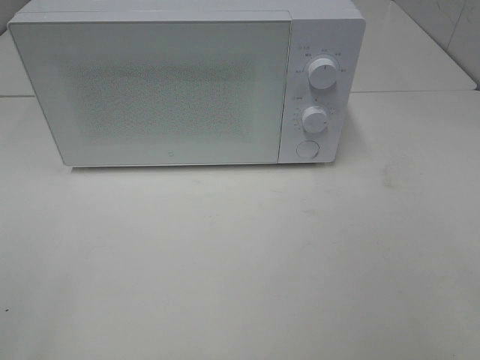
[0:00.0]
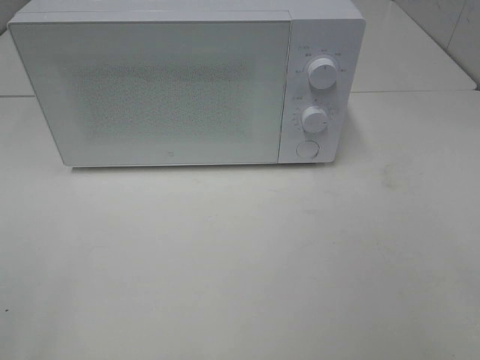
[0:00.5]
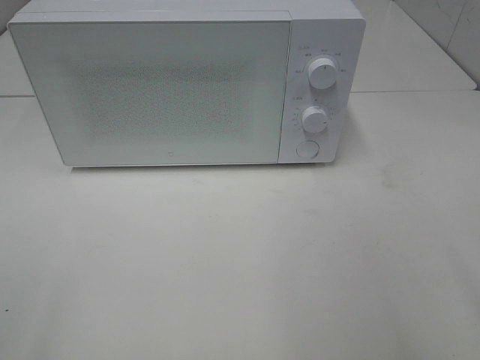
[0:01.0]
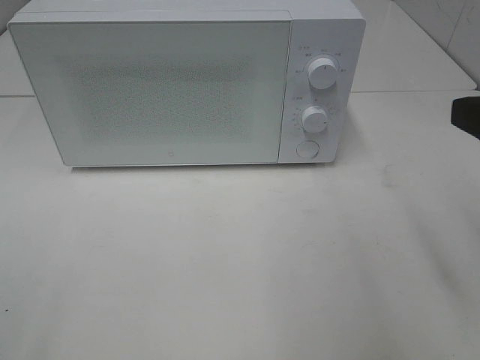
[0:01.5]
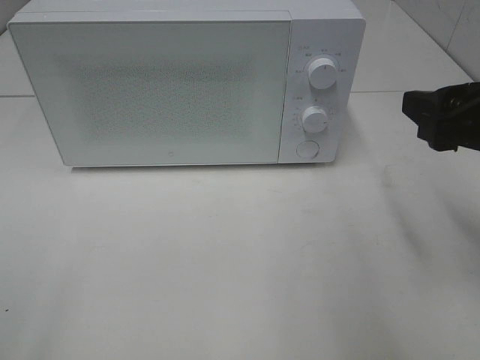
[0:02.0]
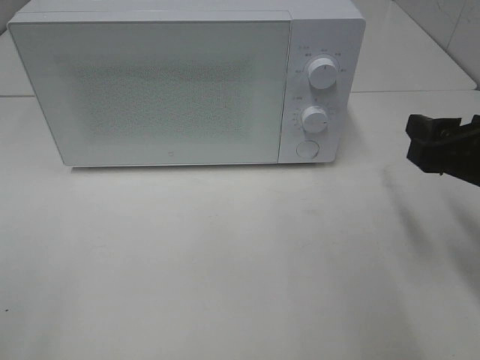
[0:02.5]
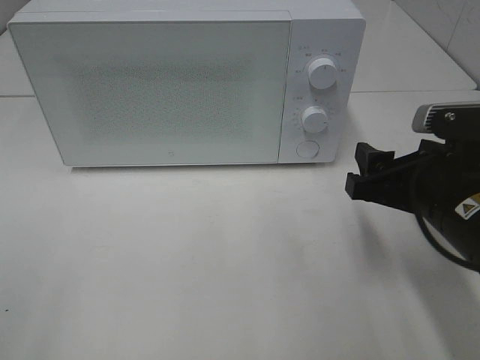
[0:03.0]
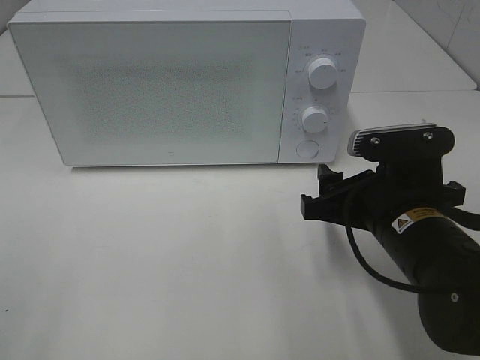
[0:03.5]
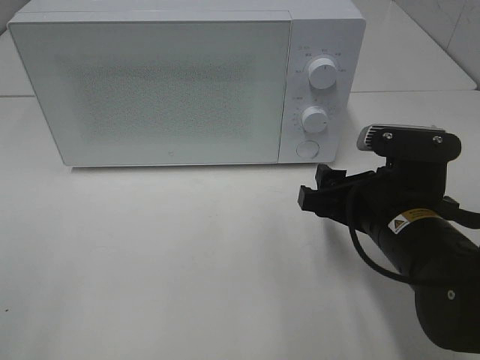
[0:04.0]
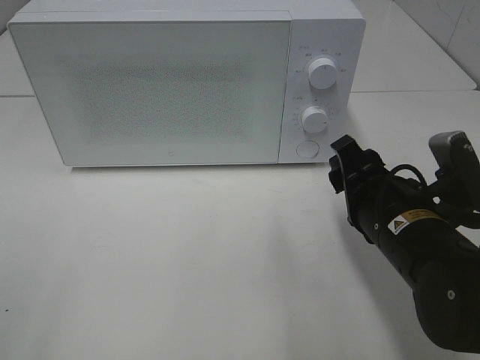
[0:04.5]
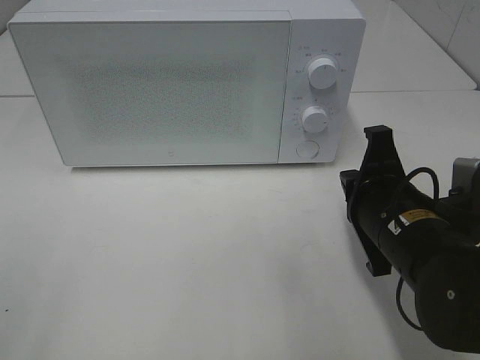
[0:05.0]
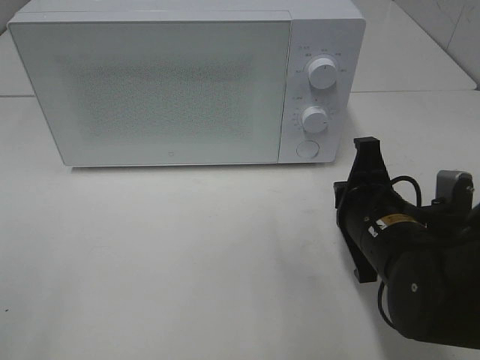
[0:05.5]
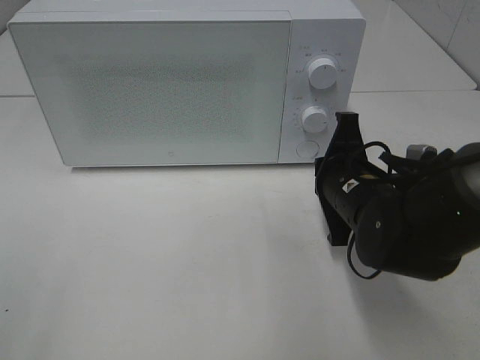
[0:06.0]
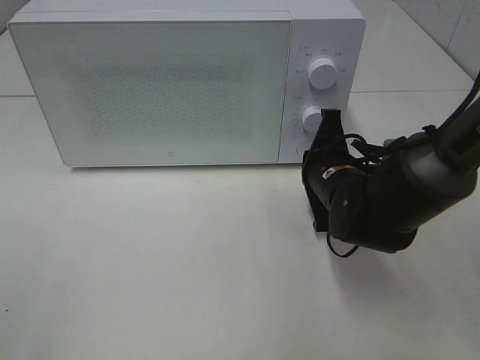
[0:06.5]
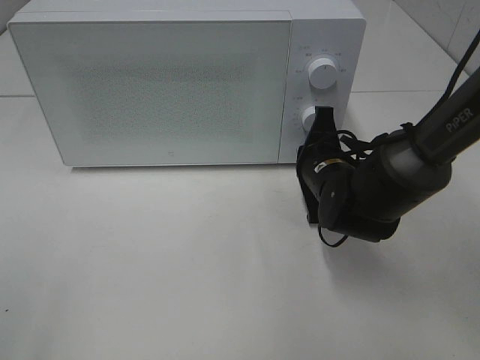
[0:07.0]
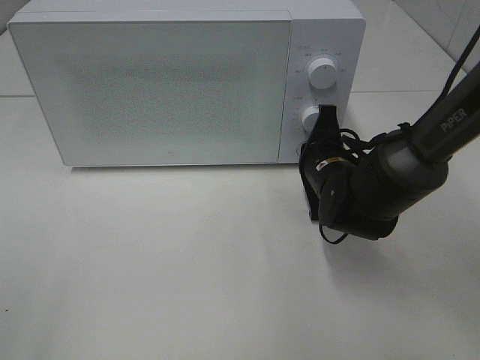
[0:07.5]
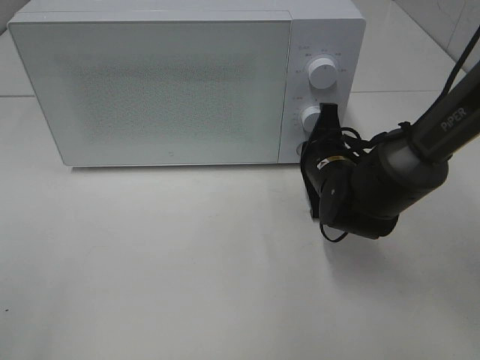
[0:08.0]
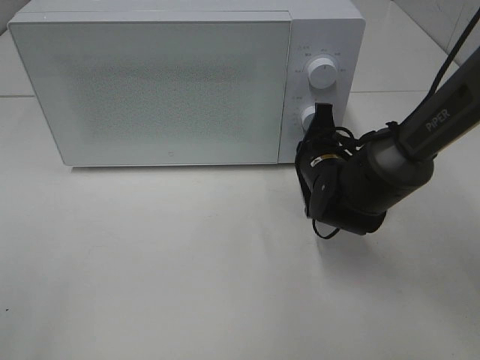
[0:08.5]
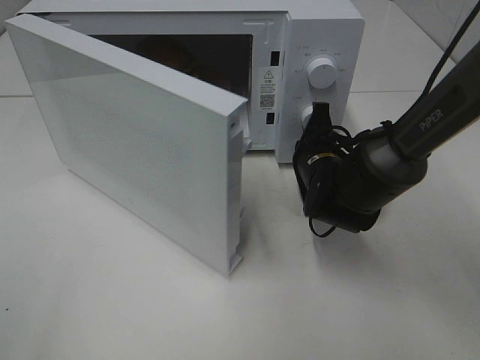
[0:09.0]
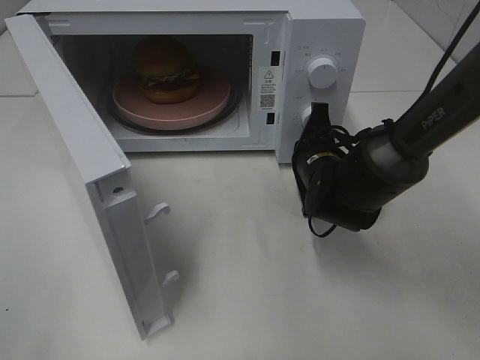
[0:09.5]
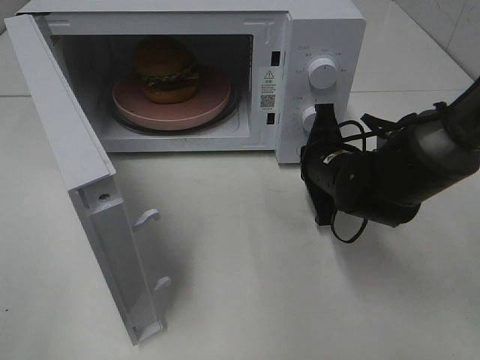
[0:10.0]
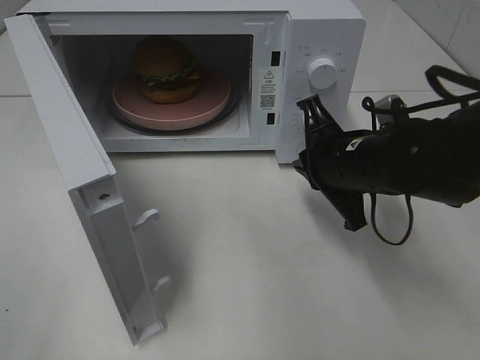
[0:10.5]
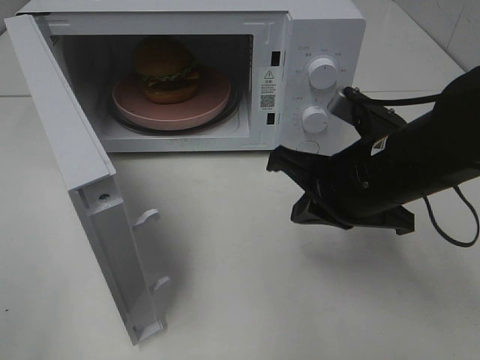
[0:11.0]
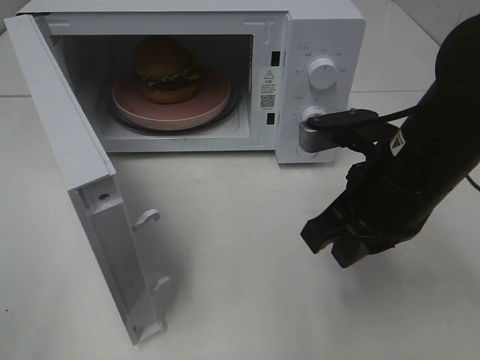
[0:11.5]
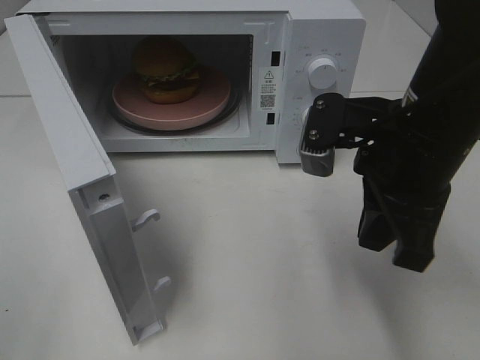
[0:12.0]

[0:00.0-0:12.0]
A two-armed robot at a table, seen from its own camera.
Task of the whole recording: Heat the burger.
Step, 0:00.0 to 0:10.0: Right hand: press the switch.
0:00.0 to 0:02.0: The right gripper is displaced forward by roughly 20 cm.
0:02.0 to 0:04.0: The right gripper is displaced downward and to the left by about 15 cm.
0:04.0 to 0:06.0: The right gripper is displaced forward by roughly 5 cm, and closes.
0:06.0 to 0:08.0: The right gripper moves forward, about 5 cm.
0:10.0 to 0:12.0: The right gripper travels upward and backward by approximately 15 cm.

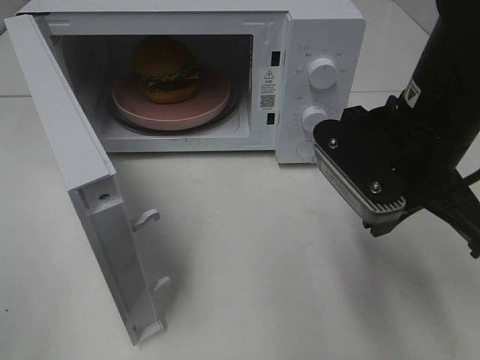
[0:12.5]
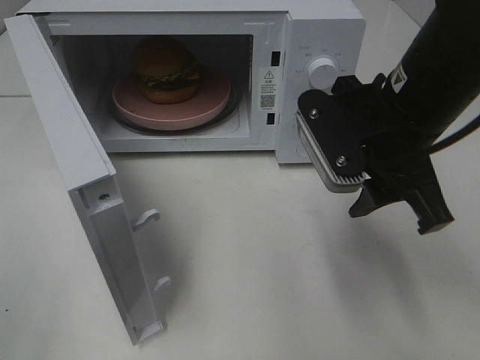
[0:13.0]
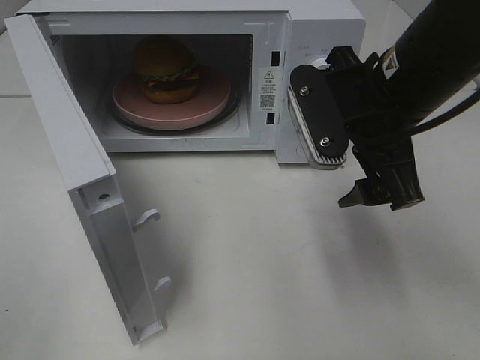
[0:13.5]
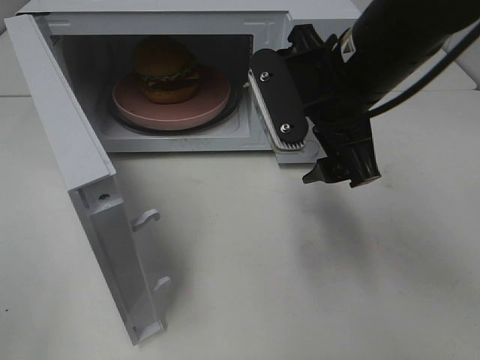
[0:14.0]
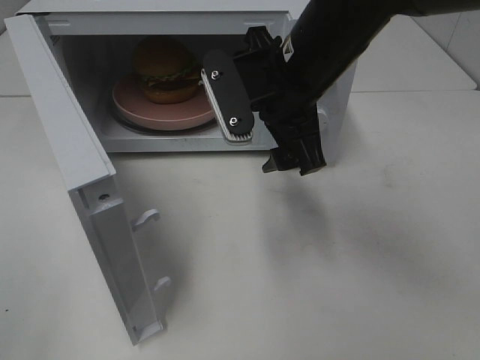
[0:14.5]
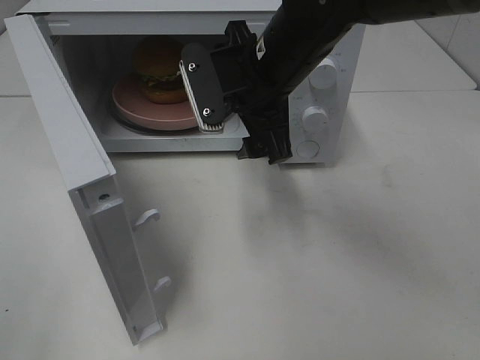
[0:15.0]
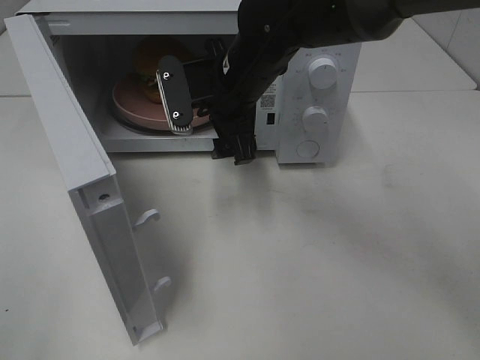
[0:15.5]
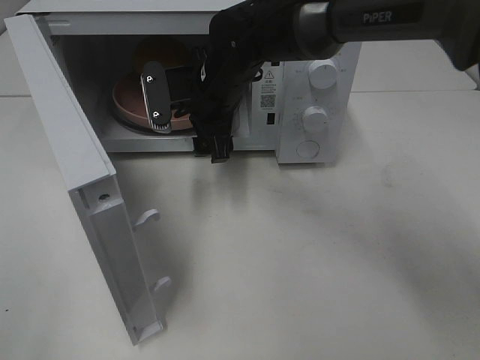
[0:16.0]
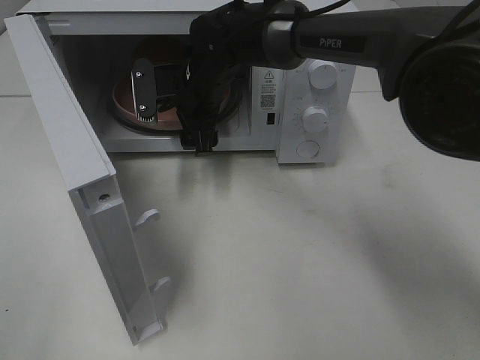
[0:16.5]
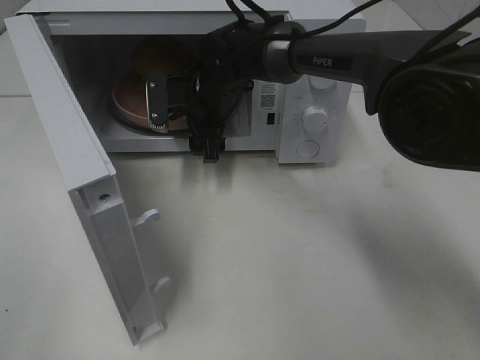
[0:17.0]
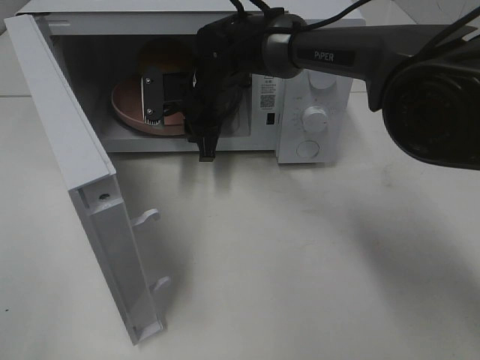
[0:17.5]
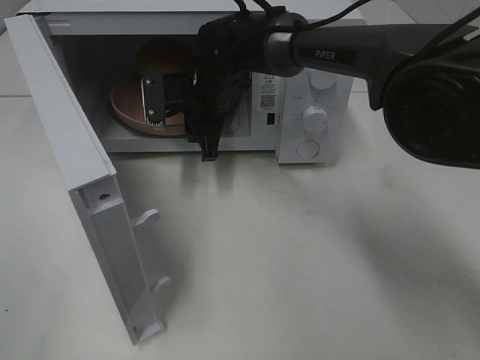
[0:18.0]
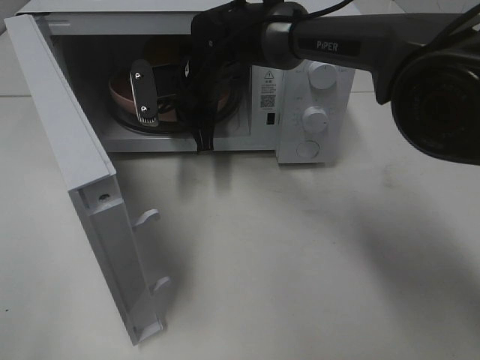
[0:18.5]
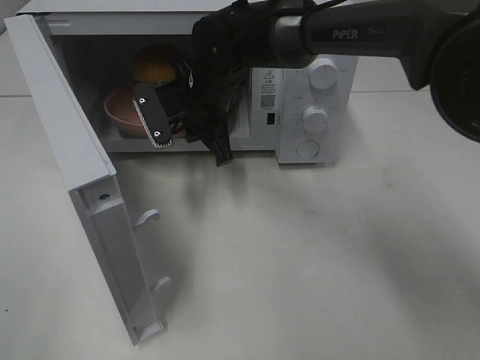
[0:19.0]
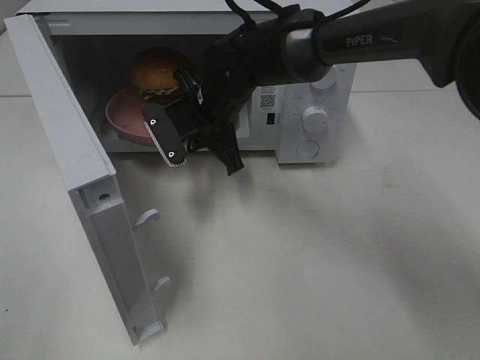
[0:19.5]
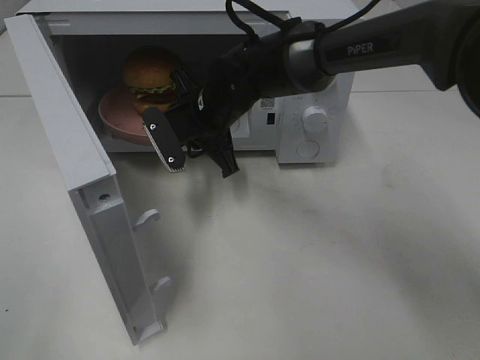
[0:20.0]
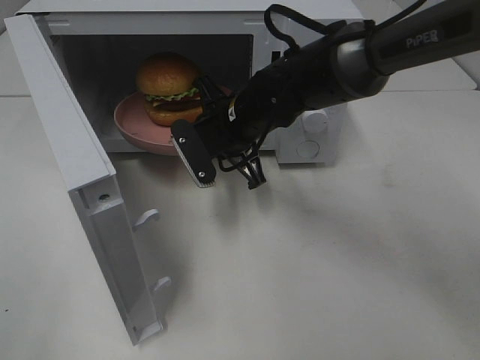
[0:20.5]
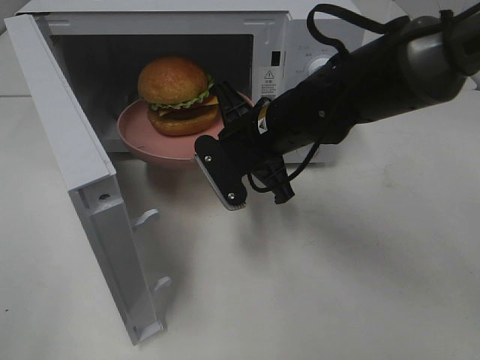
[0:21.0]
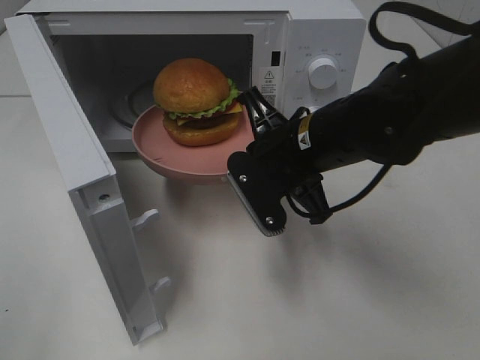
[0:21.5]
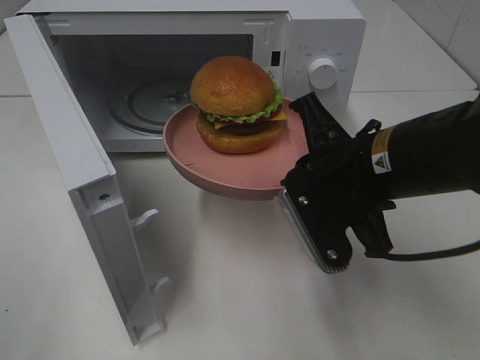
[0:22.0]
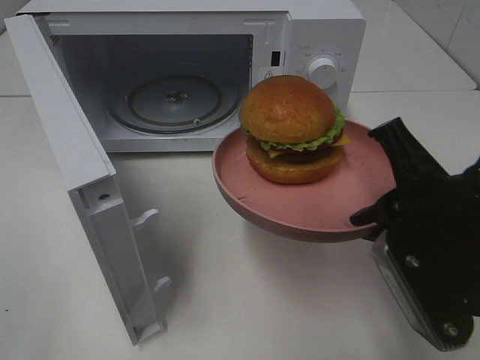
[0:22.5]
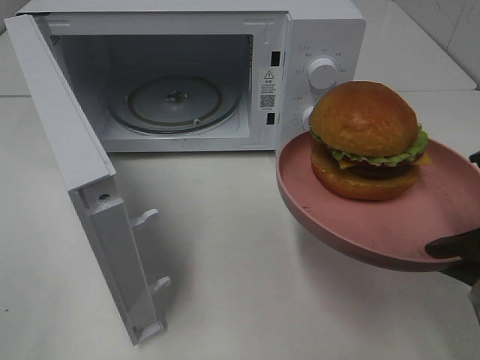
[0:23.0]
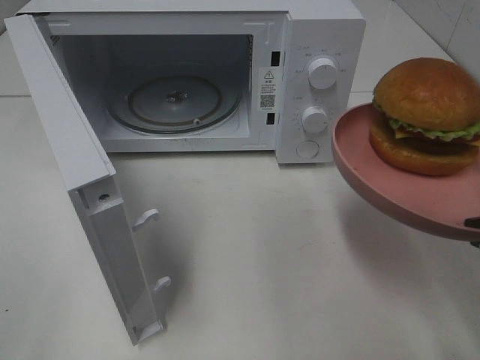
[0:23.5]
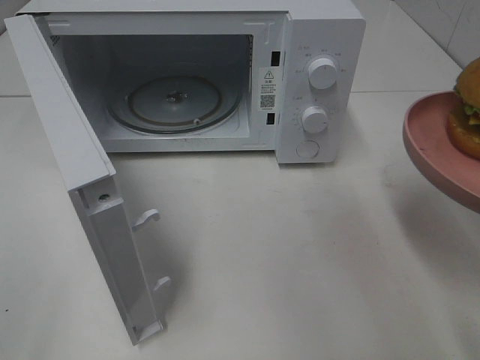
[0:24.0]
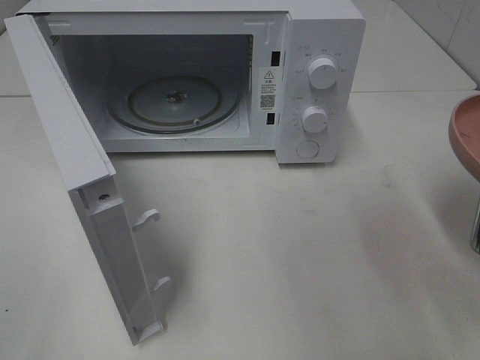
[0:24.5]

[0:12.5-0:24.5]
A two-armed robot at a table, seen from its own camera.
Task of the whole recording: Heat the burger.
Step, 0:12.5 to 0:18.5: Right hand: grab the plate with the hamburger.
0:12.5 to 0:14.5: The right gripper travels to the left and forward by some 10 cm, and opens up.
0:14.5 to 0:16.5: The right gripper is displaced forward, to the left and downward by some 20 cm.
0:16.5 to 0:18.5: The right gripper closes.
0:18.5 to 0:20.5: The right gripper travels backward and to the right by some 10 cm.
0:20.5 to 0:22.5: The right gripper heads backward and to the right, covering approximately 25 cm.
0:22.5 to 0:24.5: The right gripper goes roughly 10 cm to the right.

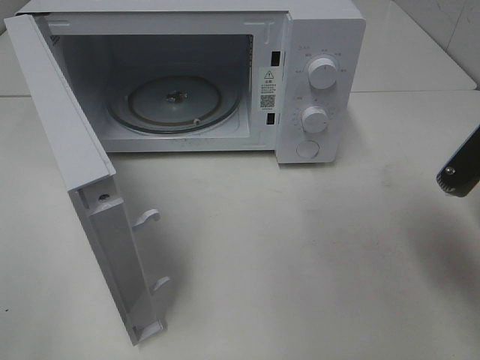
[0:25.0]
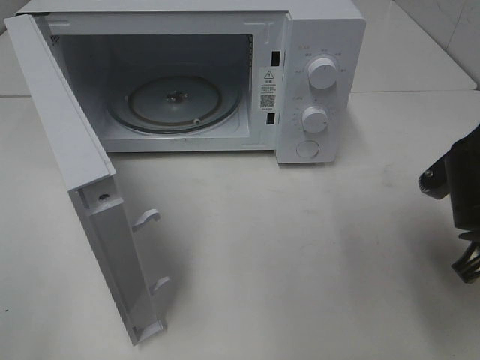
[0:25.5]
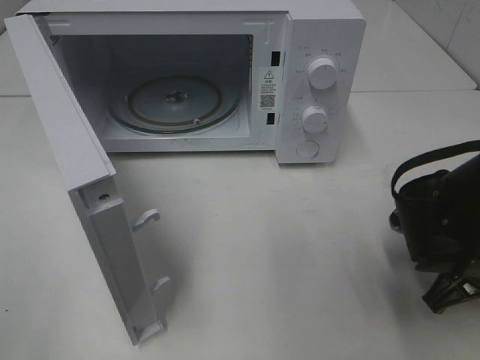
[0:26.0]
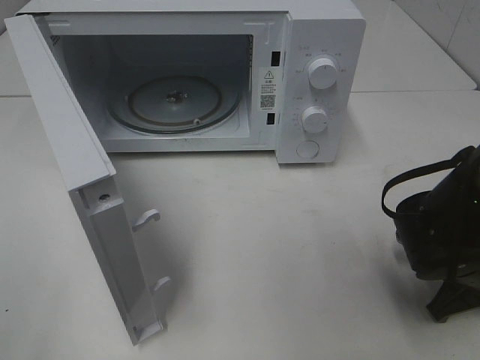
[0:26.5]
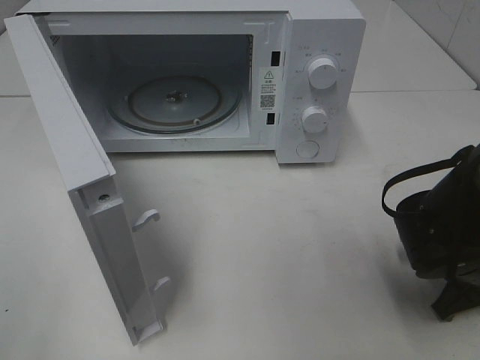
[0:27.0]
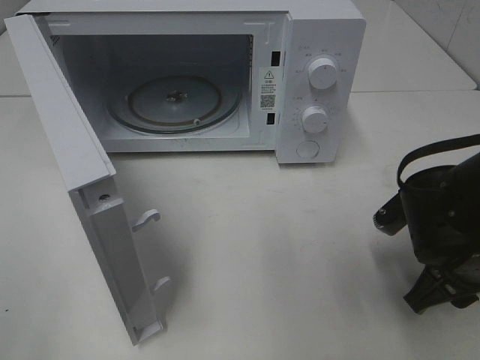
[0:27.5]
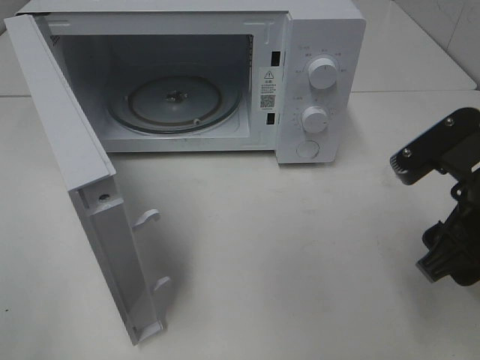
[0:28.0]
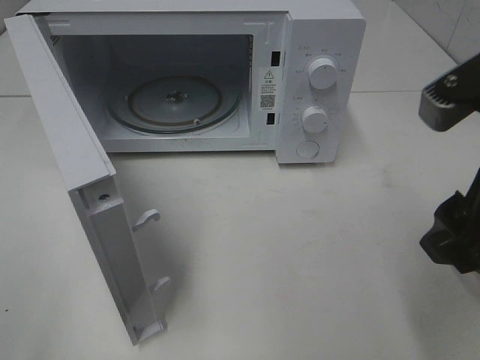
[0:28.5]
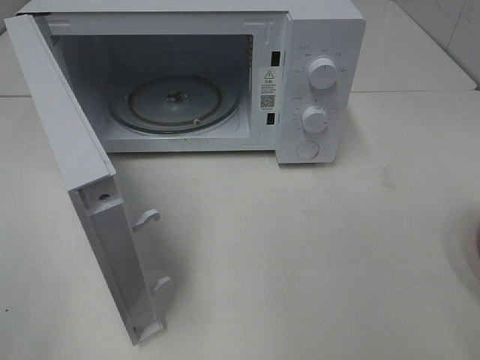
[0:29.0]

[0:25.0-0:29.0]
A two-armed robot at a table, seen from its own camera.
Task of the whole recording: Heat the burger.
Step, 0:25.0 to 0:27.5: Right hand: place the plate on the table.
0:25.0 to 0:27.0: The right gripper heads downward, covering approximately 15 cm.
0:27.0 to 0:29.0: The right gripper moves upward and backward, approximately 30 cm.
